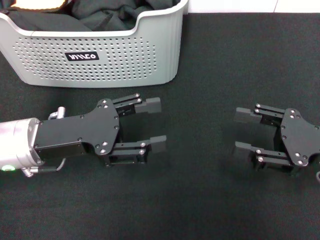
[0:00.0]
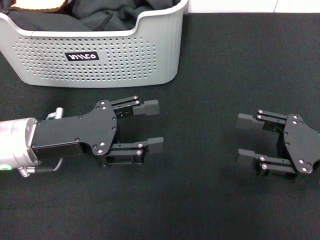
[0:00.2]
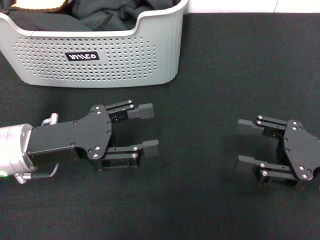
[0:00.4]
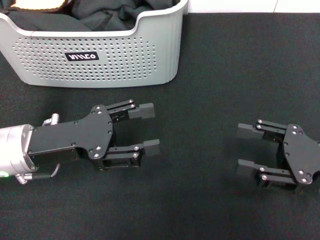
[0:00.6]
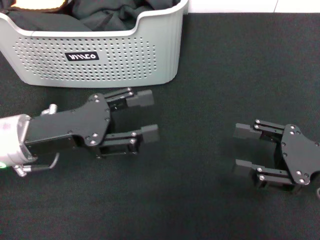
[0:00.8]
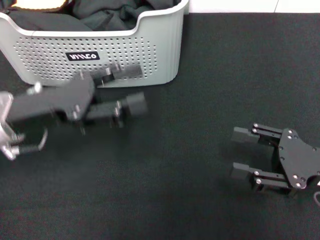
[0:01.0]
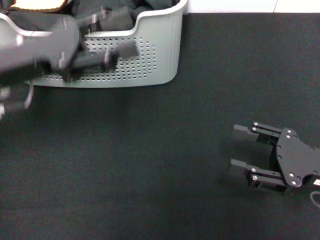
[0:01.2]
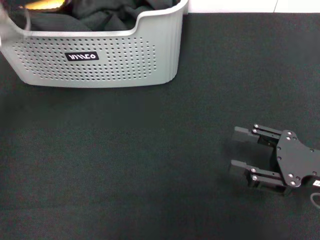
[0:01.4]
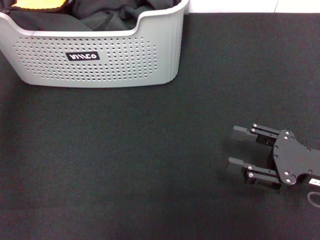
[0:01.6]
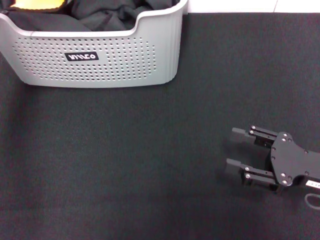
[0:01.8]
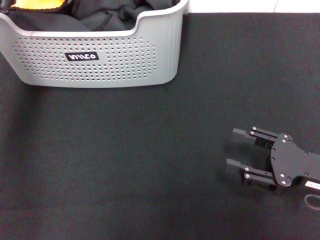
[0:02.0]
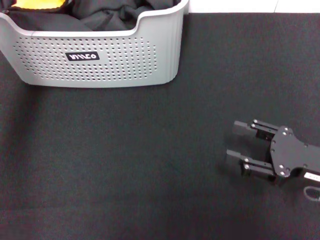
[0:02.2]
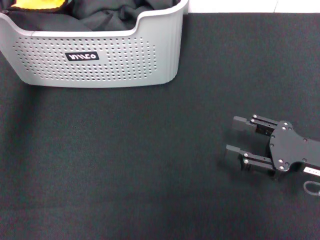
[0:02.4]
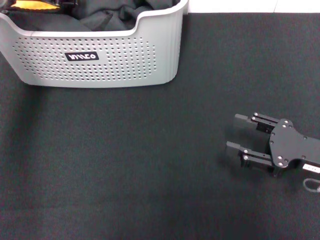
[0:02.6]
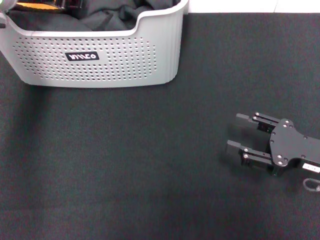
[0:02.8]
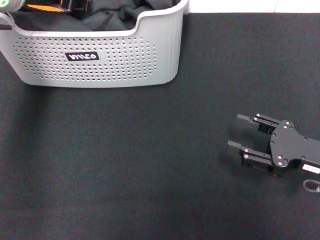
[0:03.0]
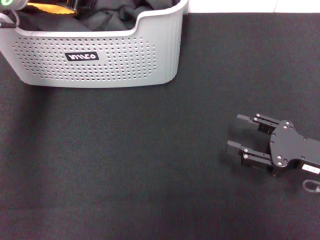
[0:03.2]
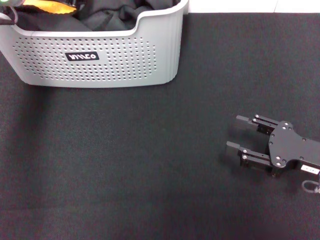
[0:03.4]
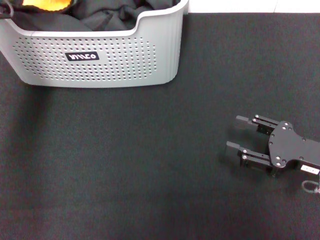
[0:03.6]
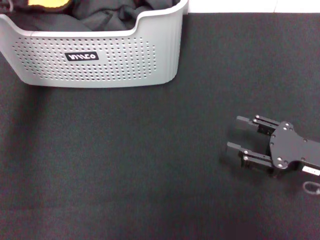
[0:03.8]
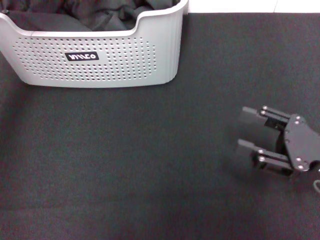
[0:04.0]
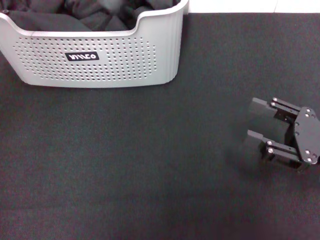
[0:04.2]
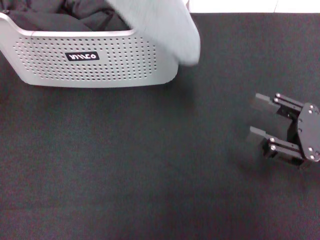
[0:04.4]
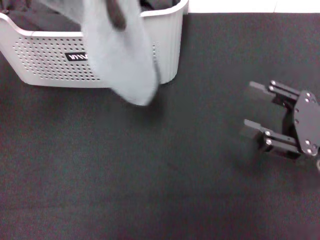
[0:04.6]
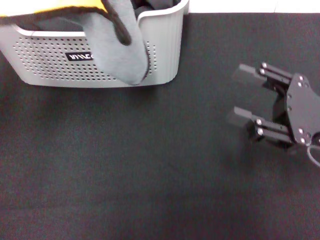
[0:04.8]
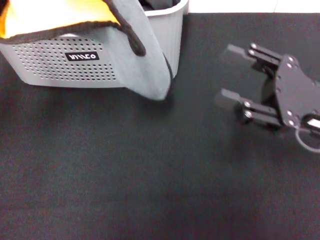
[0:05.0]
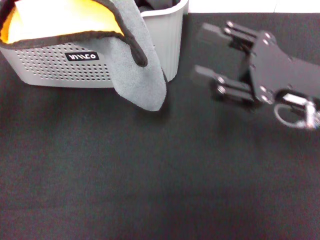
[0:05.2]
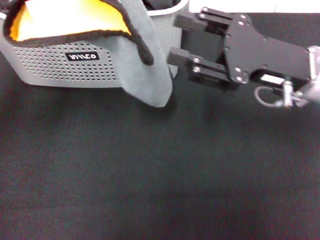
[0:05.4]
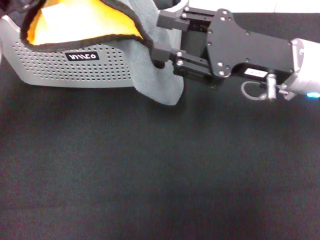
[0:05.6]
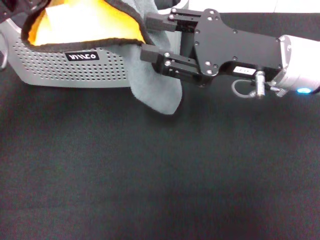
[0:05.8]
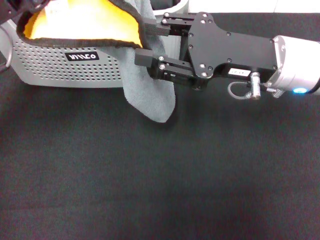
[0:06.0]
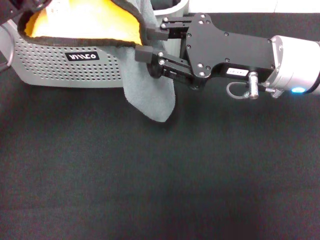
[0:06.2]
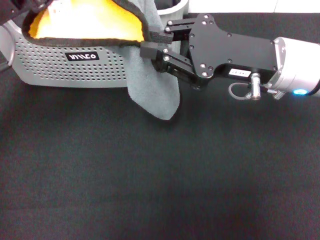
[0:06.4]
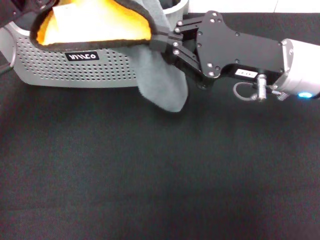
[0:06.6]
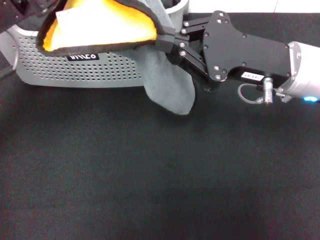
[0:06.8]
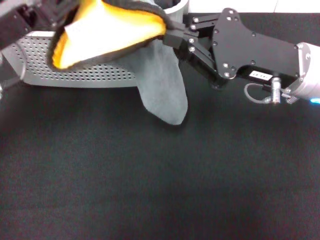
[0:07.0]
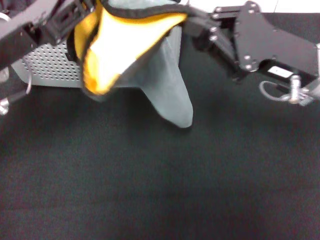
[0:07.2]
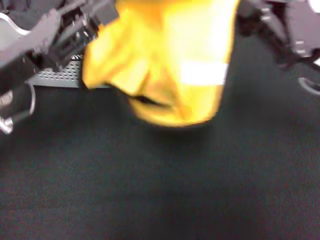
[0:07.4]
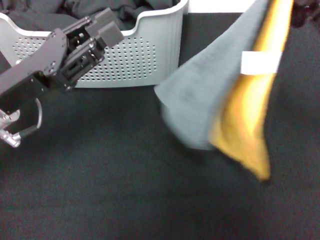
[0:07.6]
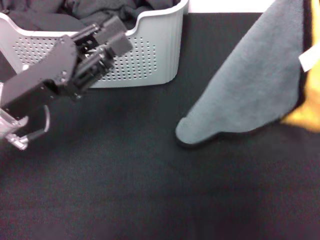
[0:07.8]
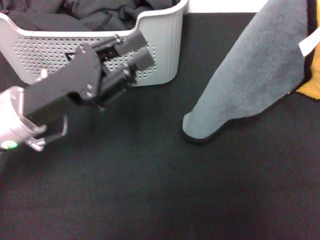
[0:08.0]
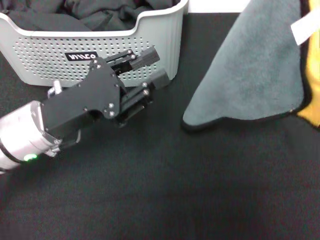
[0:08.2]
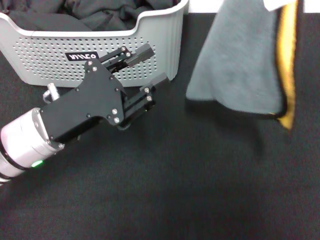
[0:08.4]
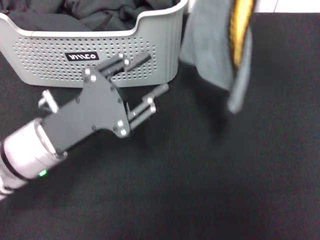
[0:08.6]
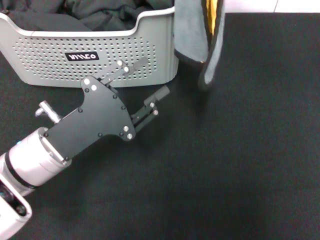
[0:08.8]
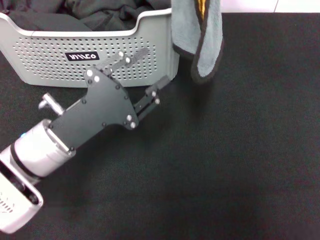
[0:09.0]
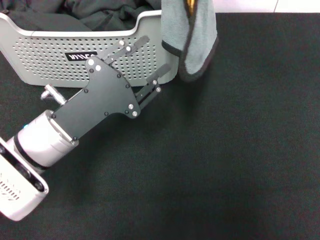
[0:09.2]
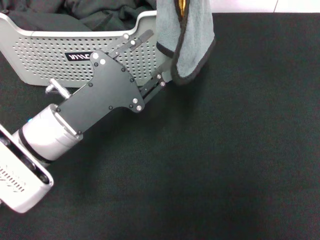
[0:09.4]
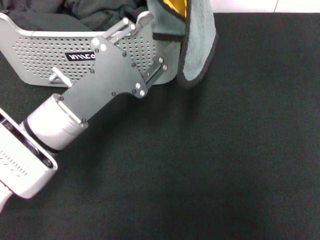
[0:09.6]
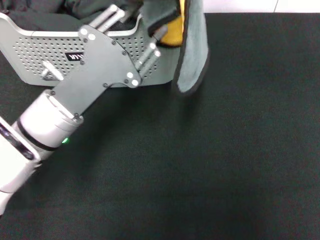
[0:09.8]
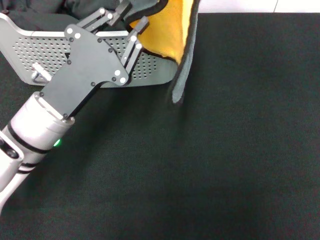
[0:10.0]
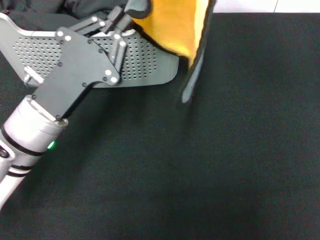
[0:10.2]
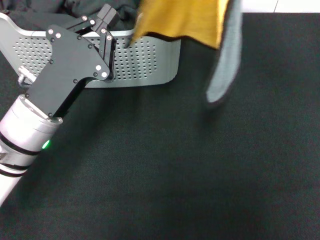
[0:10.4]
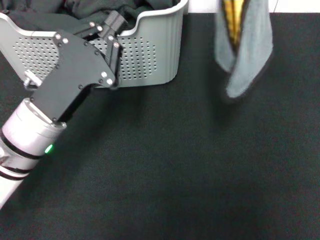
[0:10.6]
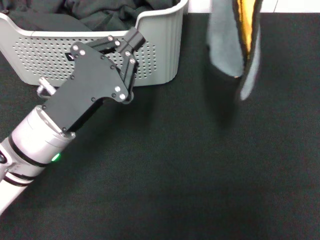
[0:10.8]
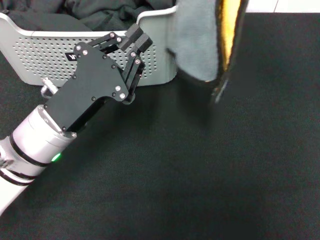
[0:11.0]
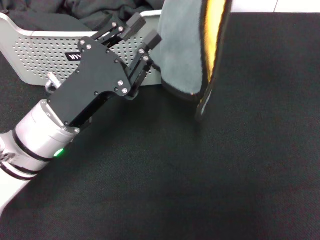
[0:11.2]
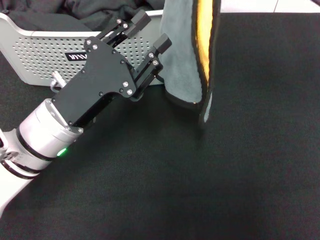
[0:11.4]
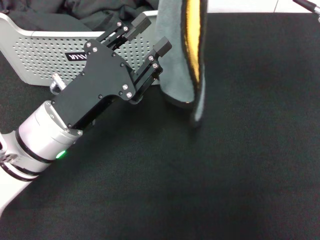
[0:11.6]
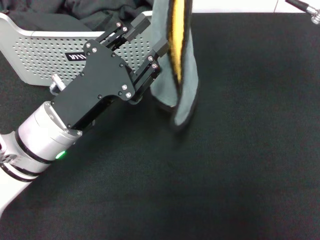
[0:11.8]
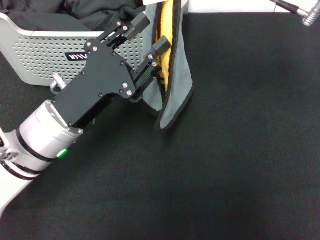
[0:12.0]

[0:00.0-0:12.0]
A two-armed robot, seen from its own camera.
Task of the whole recording: pick up the towel from the storage box and lay it flat on the black tablecloth.
Step, 0:00.0 to 0:02.8: Pick up a towel with the left gripper.
Step, 0:03.0 to 0:06.6: Spread the towel flat with the left gripper.
0:00.0 to 0:01.6: The left gripper travels upward and forward by some 20 cm.
0:01.6 to 0:03.0: The left gripper shifts some 5 cm downward.
0:03.0 to 0:04.4: The left gripper heads backward and upward, covering about 15 cm, and closes.
0:04.4 to 0:06.0: The right gripper goes roughly 20 cm to the left, forward and upward, and closes, while the left gripper heads downward, covering some 10 cm.
0:06.0 to 0:07.6: The left gripper travels downward by about 10 cm, and opens its fingers. Meanwhile the right gripper goes roughly 10 cm to the right, and closes up.
0:07.6 to 0:09.0: The right gripper travels upward, to the left and forward by roughly 20 cm. The left gripper is displaced downward and to the right by approximately 10 cm.
0:09.0 to 0:10.4: The left gripper closes.
0:10.4 to 0:12.0: The right gripper shifts roughly 5 cm to the left, while the left gripper opens.

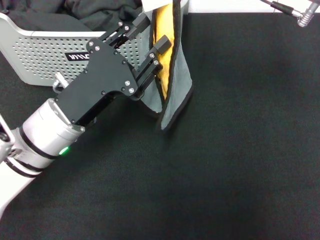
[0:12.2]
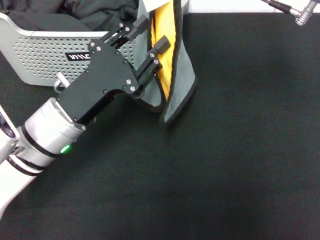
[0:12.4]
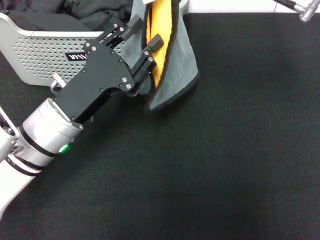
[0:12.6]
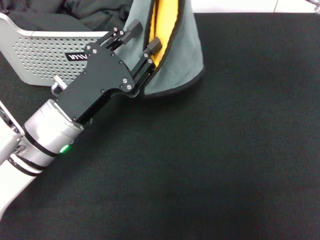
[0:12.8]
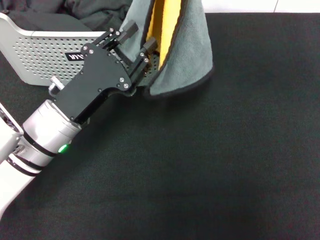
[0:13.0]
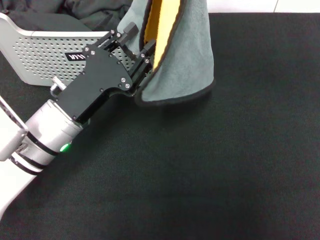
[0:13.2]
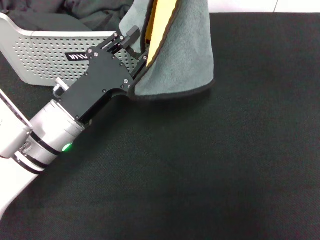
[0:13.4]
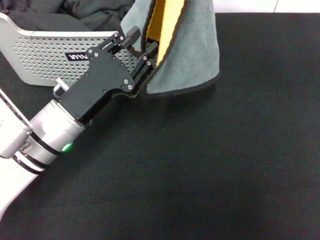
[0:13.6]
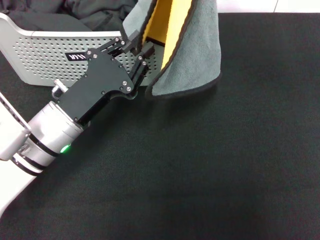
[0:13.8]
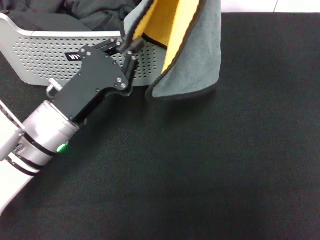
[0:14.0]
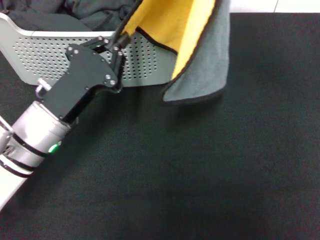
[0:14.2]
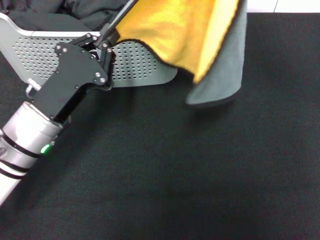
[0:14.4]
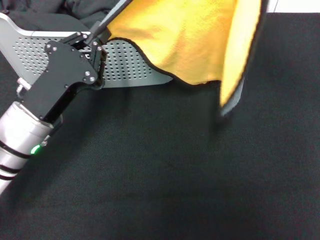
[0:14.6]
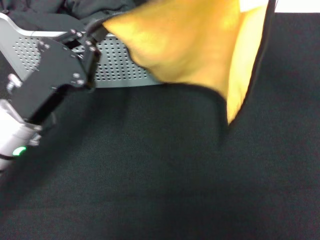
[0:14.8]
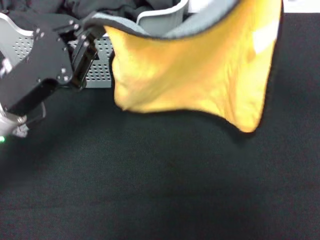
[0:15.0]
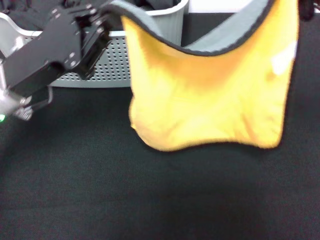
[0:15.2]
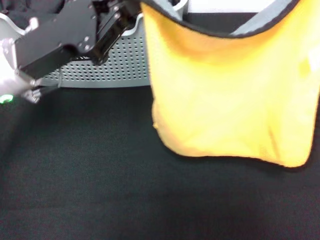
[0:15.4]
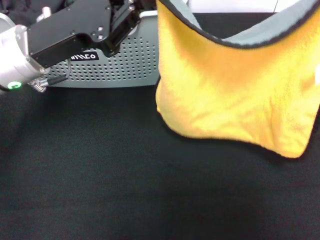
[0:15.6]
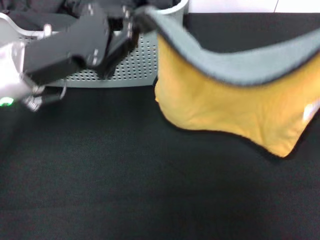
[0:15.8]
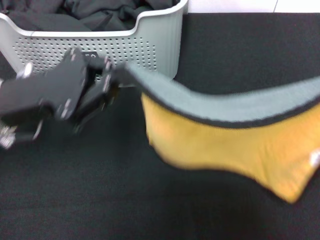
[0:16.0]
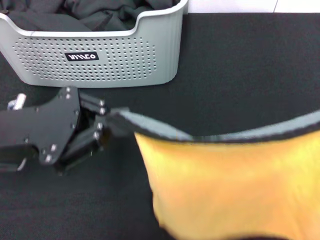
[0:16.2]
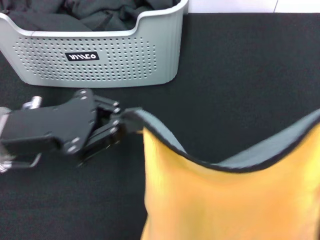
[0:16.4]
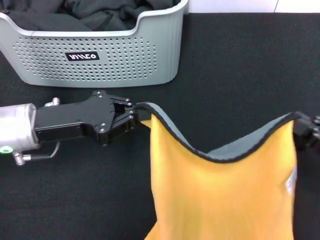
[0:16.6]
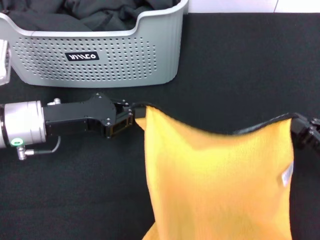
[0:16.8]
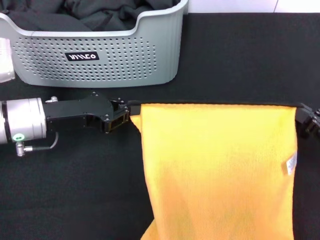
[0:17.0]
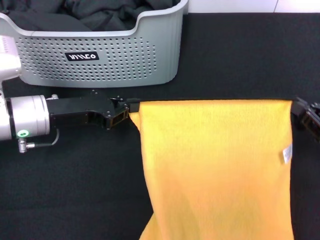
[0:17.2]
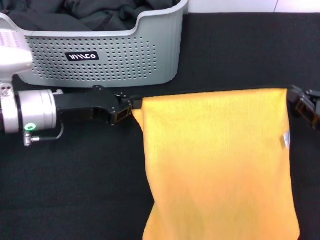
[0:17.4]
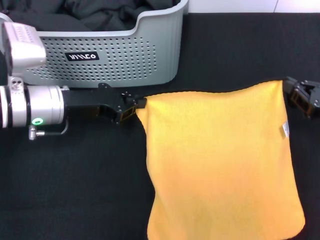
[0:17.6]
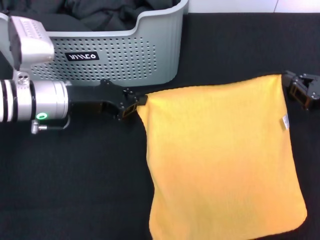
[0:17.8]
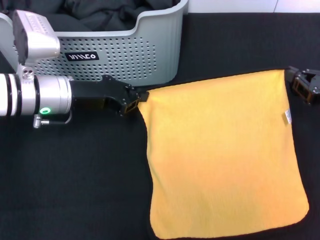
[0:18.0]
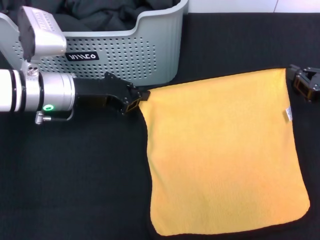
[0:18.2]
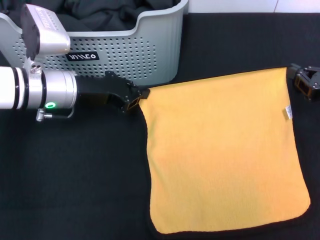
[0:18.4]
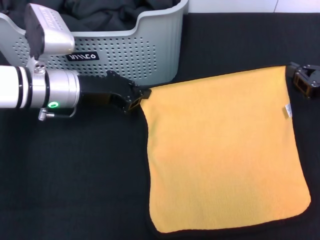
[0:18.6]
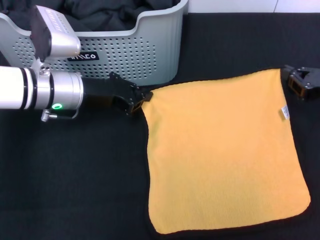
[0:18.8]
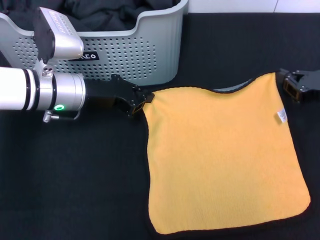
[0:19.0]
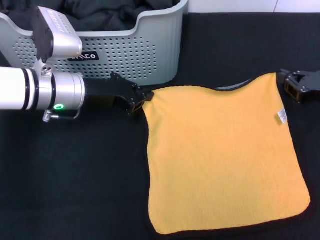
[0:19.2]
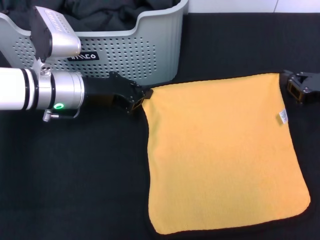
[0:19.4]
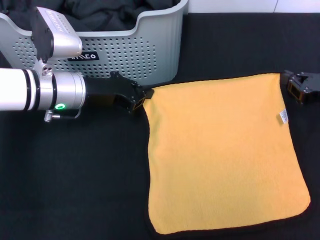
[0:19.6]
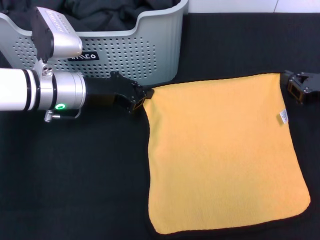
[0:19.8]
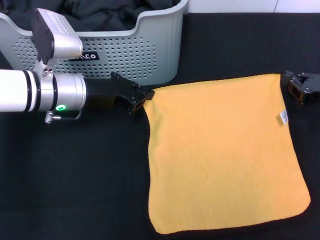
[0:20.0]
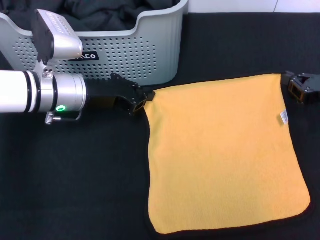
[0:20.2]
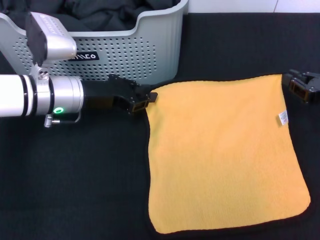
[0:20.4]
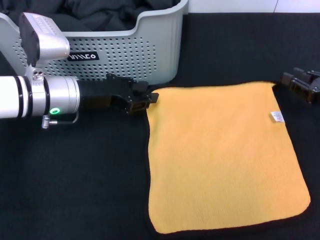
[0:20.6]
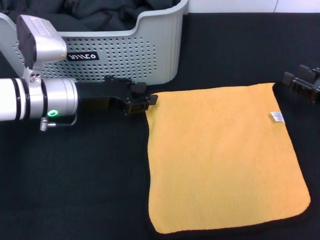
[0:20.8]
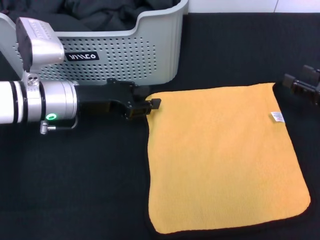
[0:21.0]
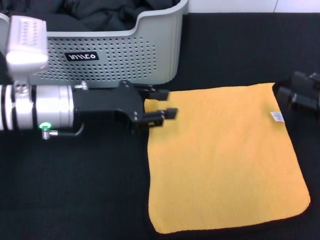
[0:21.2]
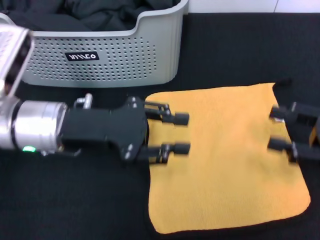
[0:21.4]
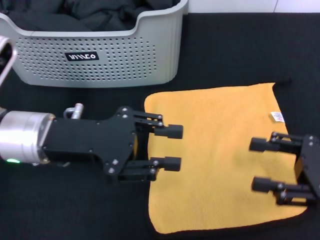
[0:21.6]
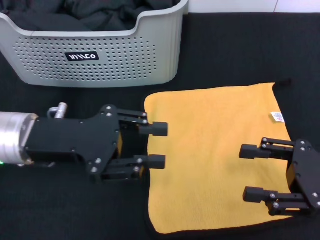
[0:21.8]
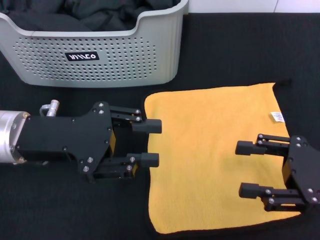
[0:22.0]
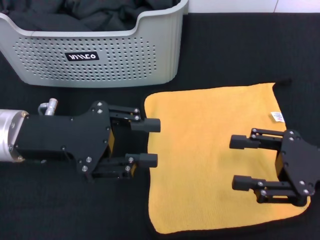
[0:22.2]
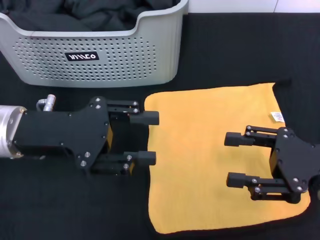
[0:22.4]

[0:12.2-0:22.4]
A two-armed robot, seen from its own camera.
Task of the whole recording: pick up the towel from the storage box and lay it flat on the black tablecloth.
Step, 0:12.2 to 0:20.6: Spread the towel flat with the right gripper.
0:12.2 to 0:13.6: The grippers move only a little.
0:13.6 to 0:15.2: The left gripper moves upward, approximately 10 cm, and closes up; the right gripper heads to the right, downward and backward, covering about 15 cm.
0:15.2 to 0:16.6: The left gripper goes backward and returns, some 5 cm each way, while the right gripper travels downward and backward by about 15 cm.
0:16.6 to 0:18.0: The grippers both shift forward by some 10 cm.
0:18.0 to 0:19.4: The grippers stay close to where they were, moving slightly.
0:19.4 to 0:21.0: The right gripper opens. The left gripper opens.
0:21.0 to 0:22.4: The left gripper shifts approximately 10 cm backward and upward. The right gripper shifts some 10 cm backward and to the left.
